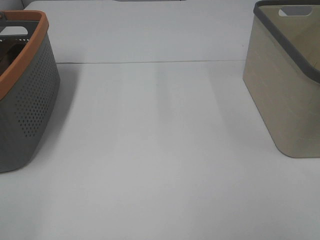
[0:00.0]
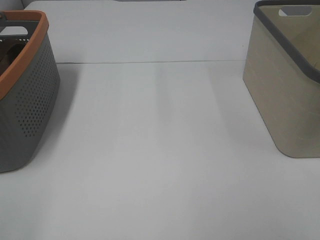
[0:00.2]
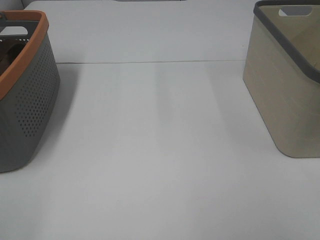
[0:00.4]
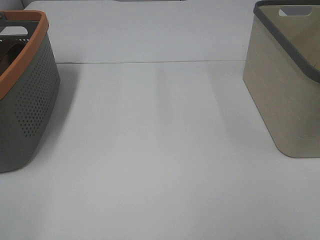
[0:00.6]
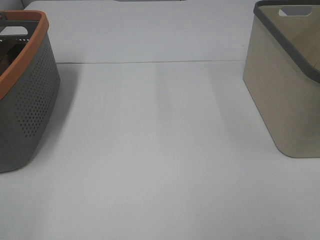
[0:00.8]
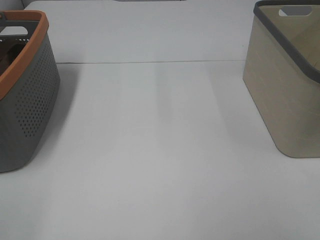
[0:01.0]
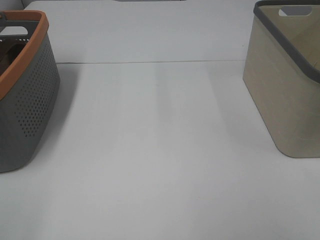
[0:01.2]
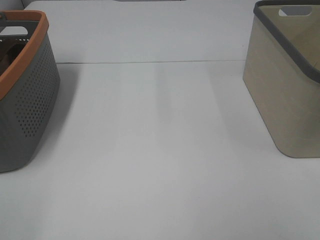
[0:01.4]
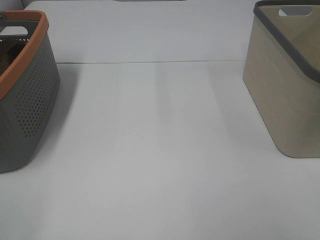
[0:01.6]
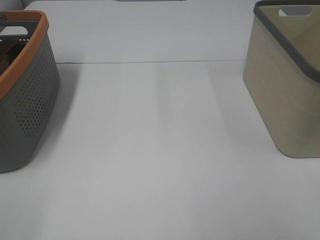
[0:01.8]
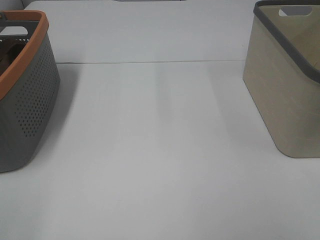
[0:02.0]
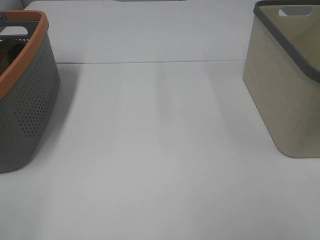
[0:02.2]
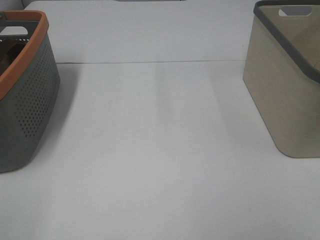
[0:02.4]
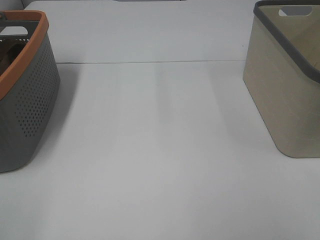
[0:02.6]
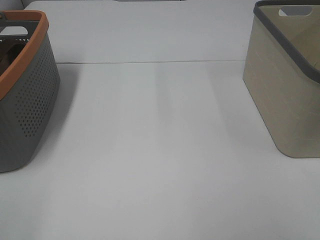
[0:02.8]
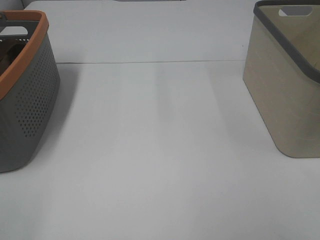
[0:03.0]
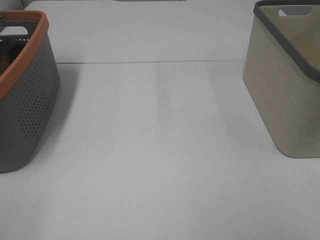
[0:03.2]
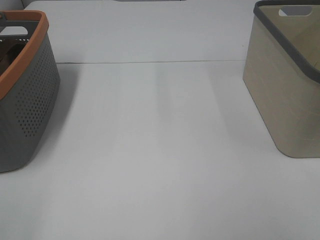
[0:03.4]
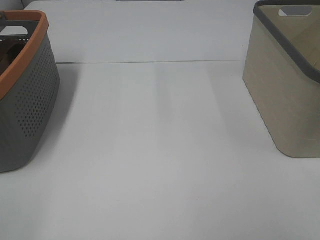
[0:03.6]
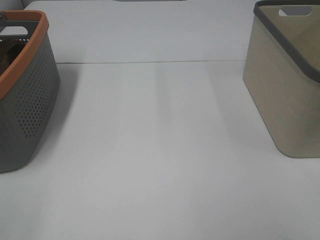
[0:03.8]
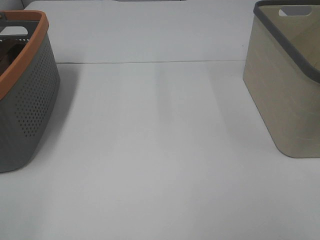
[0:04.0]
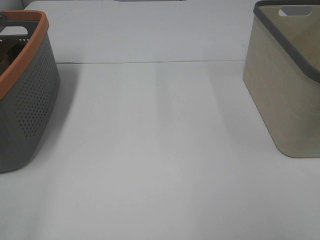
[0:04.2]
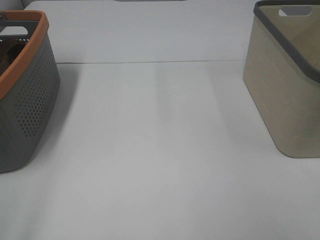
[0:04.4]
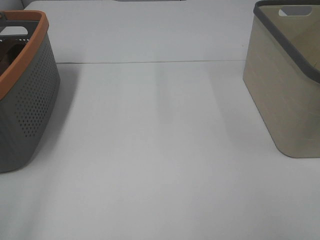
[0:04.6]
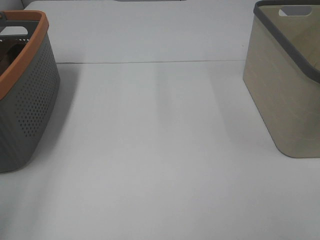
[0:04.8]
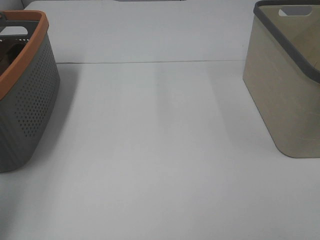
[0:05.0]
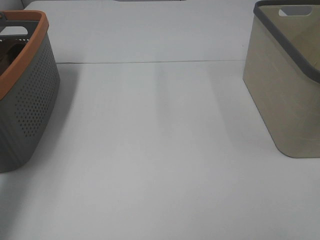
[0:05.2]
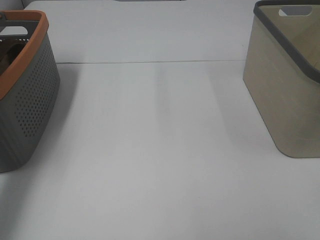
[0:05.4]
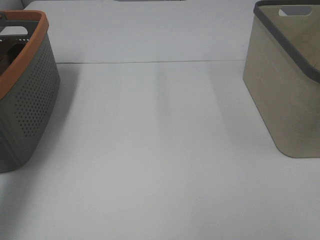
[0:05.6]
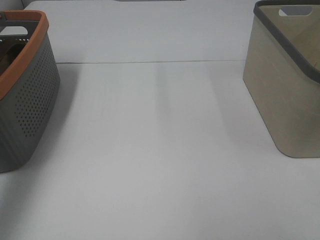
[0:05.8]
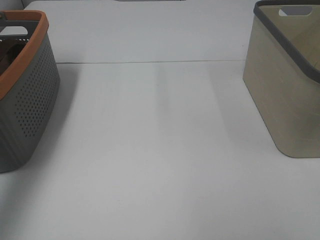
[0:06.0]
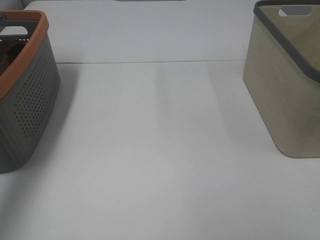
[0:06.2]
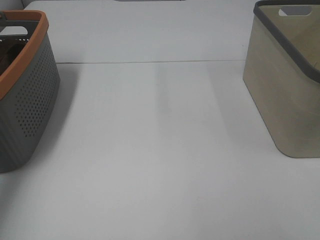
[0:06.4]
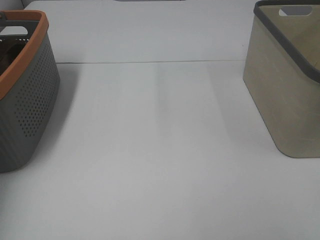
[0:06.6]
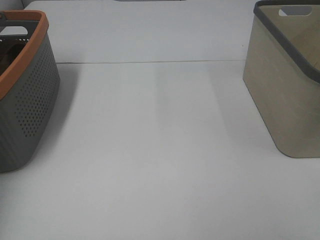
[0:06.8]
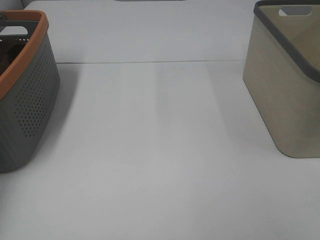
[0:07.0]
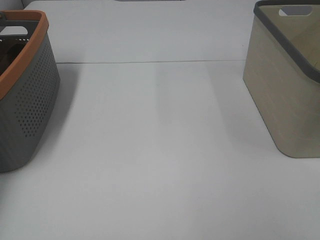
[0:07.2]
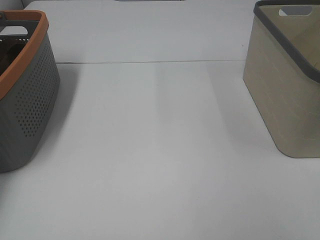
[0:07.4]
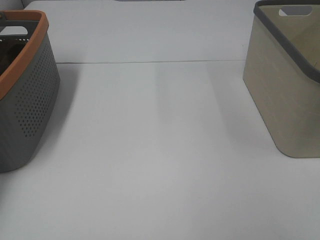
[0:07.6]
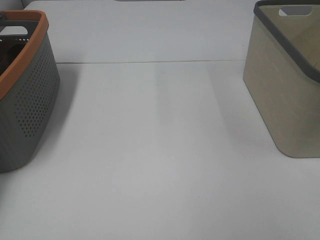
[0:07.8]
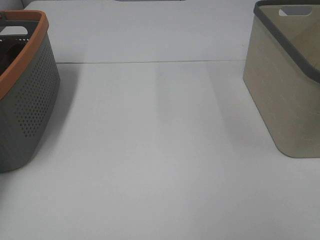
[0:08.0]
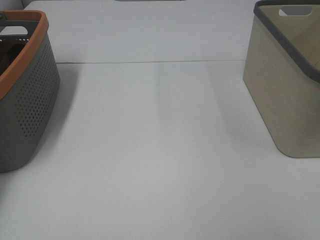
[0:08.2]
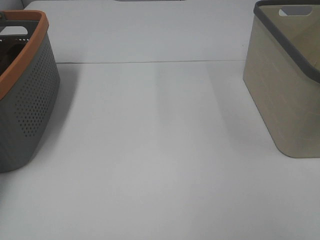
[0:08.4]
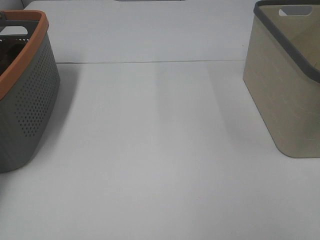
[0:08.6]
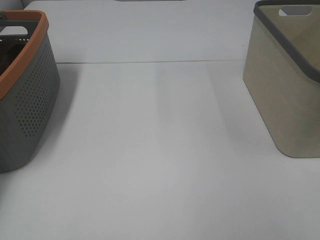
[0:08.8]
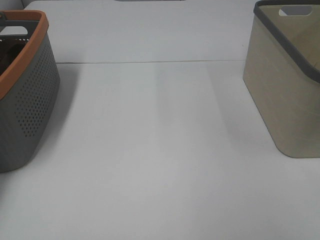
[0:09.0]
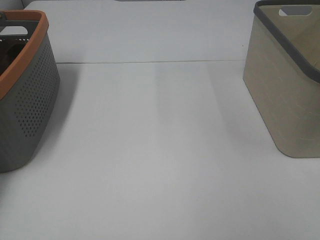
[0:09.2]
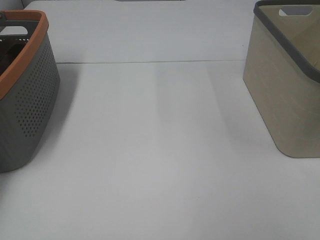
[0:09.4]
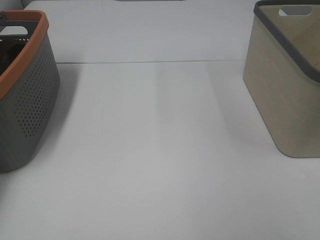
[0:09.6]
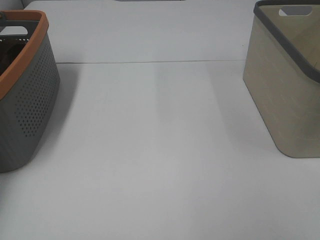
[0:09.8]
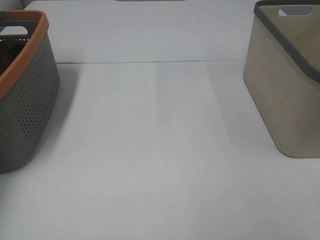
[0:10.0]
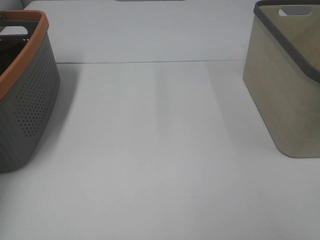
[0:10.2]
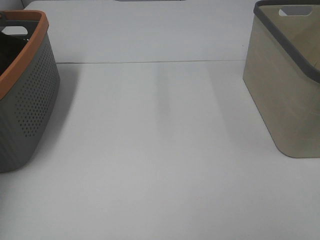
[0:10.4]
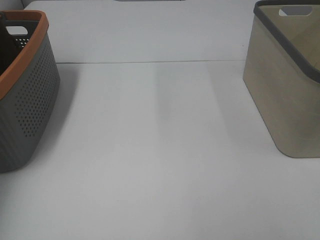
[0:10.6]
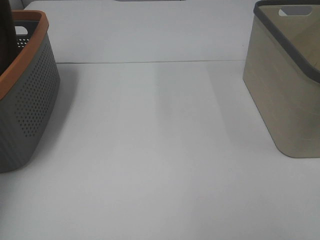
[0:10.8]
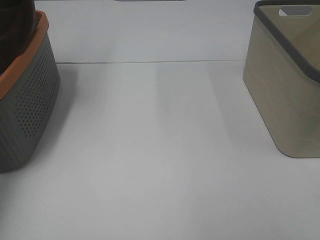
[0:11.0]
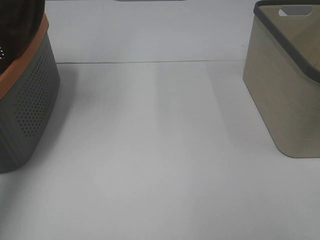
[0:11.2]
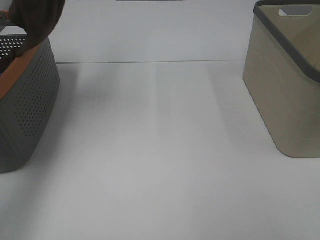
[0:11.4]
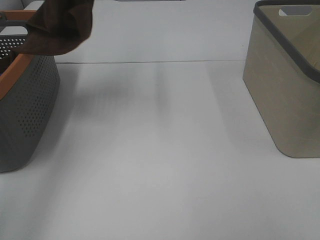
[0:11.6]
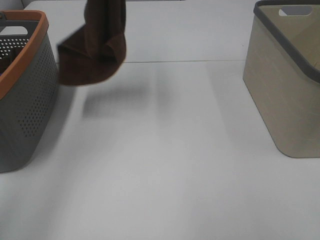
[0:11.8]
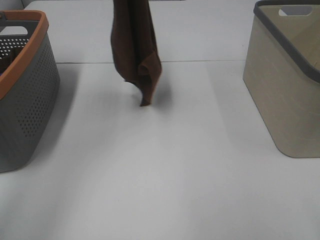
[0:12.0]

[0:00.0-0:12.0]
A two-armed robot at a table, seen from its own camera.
Task of the whole recording: Remove the towel and place it.
0:00.0 to 0:03.0: The two grippers keep their place.
0:04.4 to 0:06.0: The left gripper heads forward, covering about 30 cm.
0:06.0 to 0:07.6: The left gripper is displaced forward, downward and to the left by approximately 20 cm.
0:10.4 to 0:12.0: The left gripper is displaced to the right by some 25 cm.

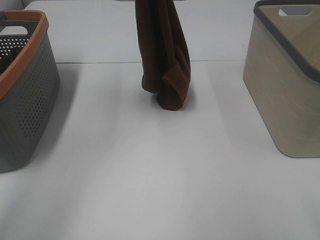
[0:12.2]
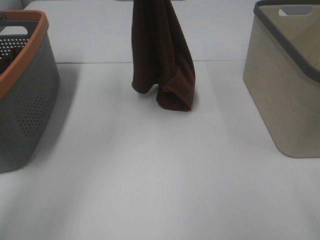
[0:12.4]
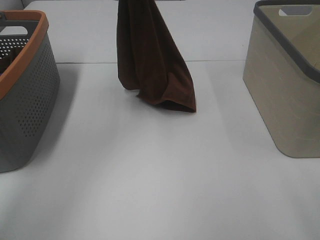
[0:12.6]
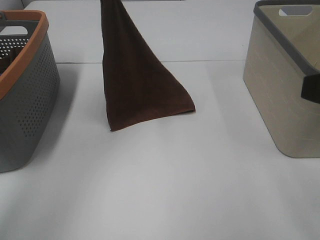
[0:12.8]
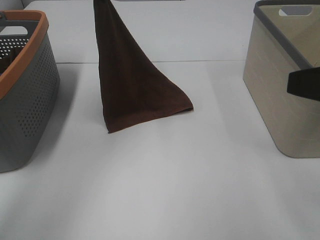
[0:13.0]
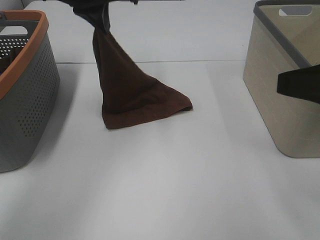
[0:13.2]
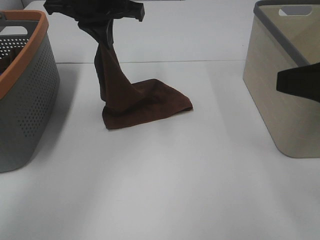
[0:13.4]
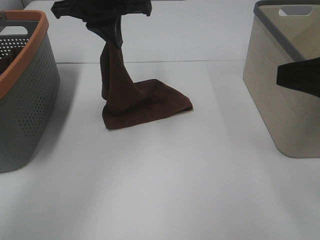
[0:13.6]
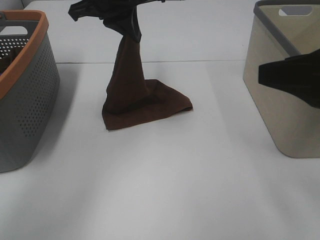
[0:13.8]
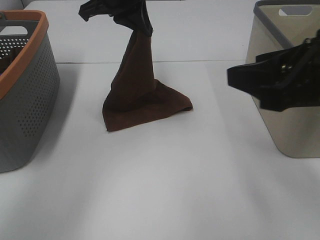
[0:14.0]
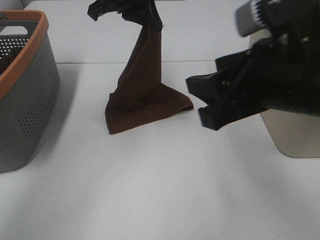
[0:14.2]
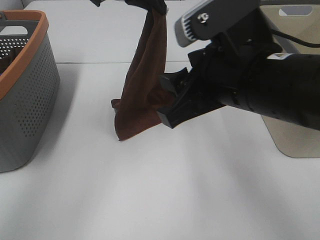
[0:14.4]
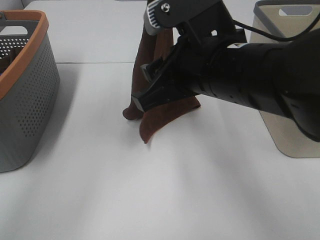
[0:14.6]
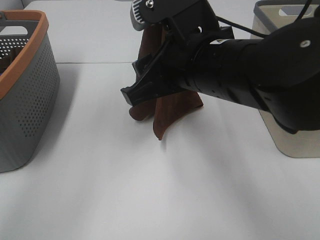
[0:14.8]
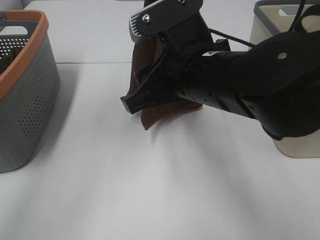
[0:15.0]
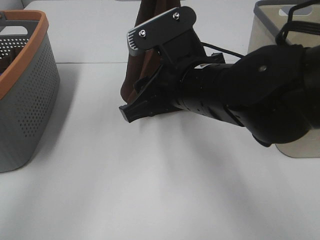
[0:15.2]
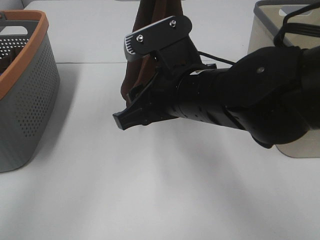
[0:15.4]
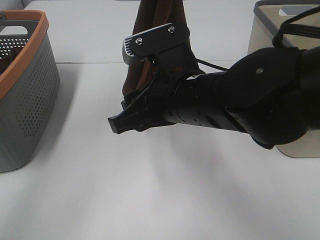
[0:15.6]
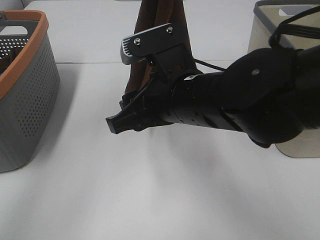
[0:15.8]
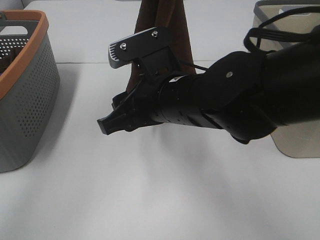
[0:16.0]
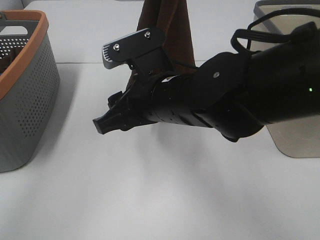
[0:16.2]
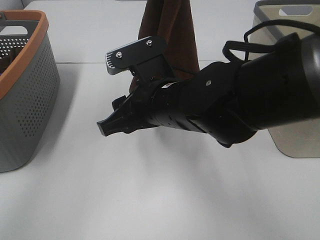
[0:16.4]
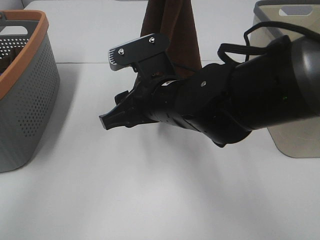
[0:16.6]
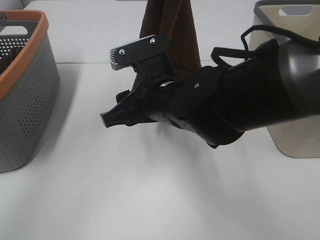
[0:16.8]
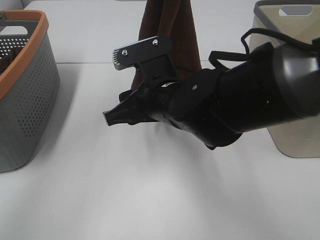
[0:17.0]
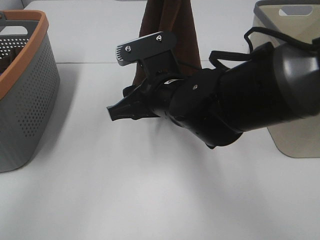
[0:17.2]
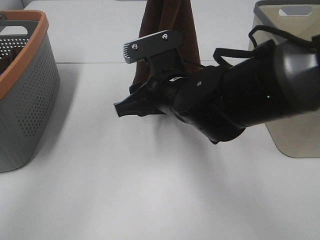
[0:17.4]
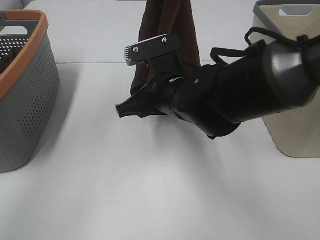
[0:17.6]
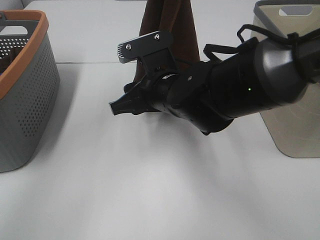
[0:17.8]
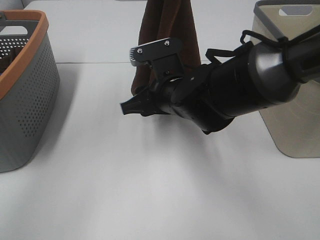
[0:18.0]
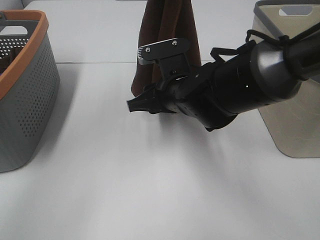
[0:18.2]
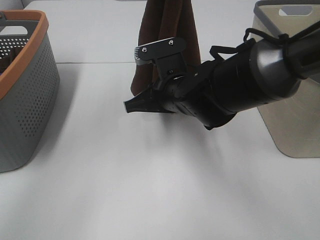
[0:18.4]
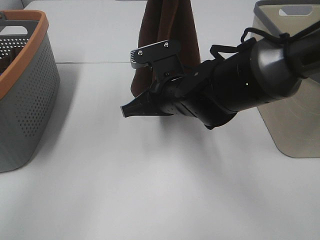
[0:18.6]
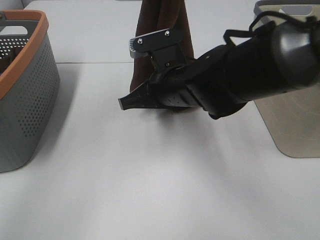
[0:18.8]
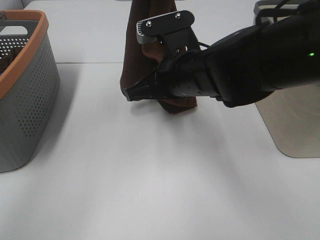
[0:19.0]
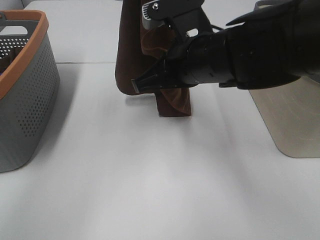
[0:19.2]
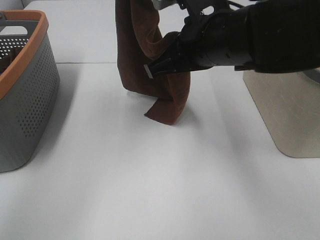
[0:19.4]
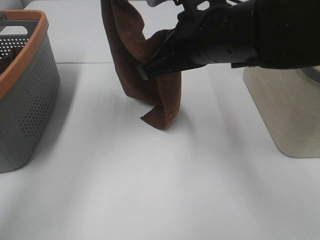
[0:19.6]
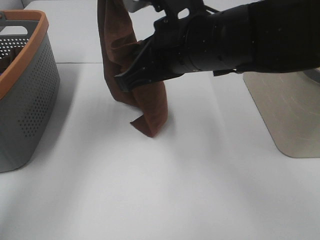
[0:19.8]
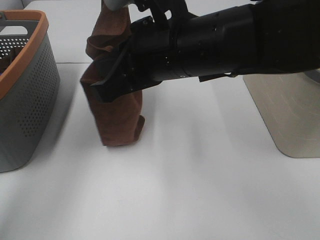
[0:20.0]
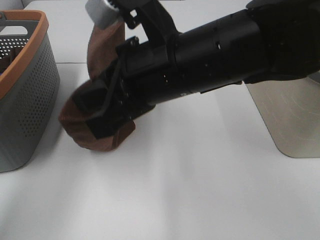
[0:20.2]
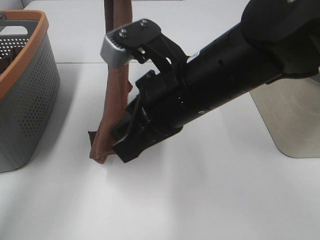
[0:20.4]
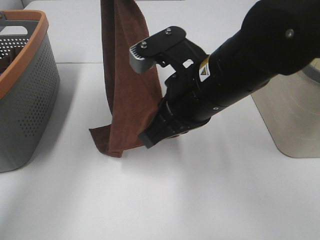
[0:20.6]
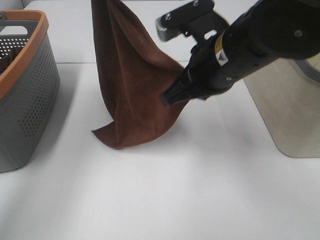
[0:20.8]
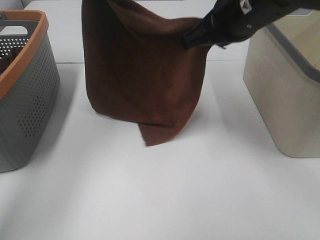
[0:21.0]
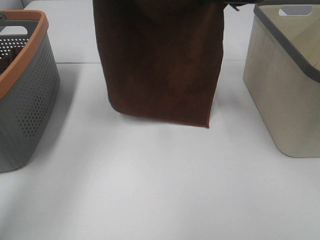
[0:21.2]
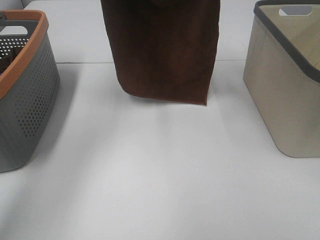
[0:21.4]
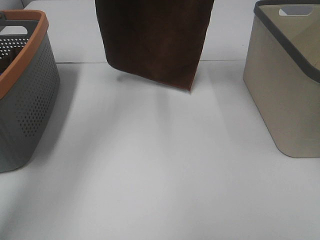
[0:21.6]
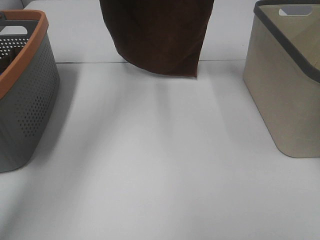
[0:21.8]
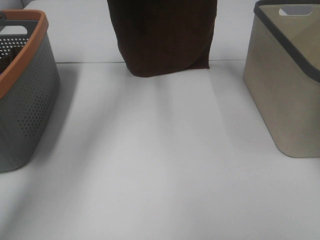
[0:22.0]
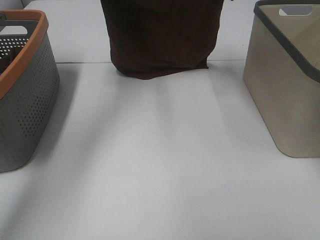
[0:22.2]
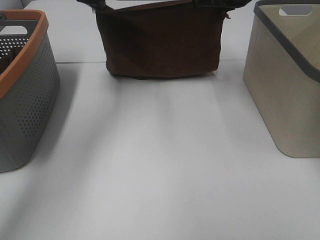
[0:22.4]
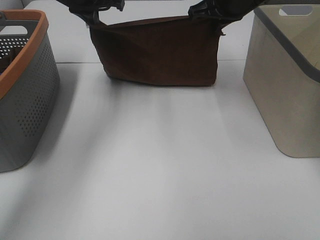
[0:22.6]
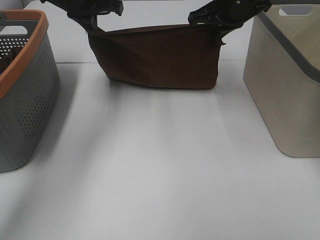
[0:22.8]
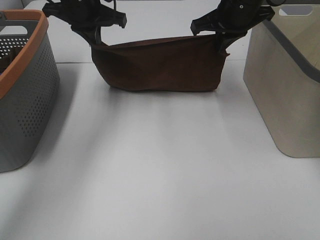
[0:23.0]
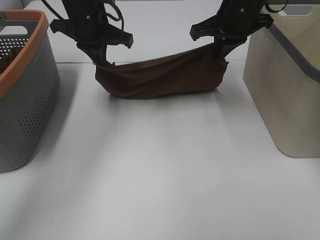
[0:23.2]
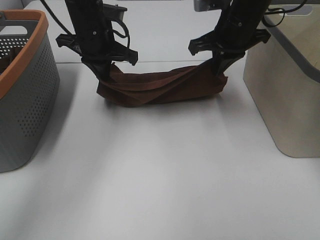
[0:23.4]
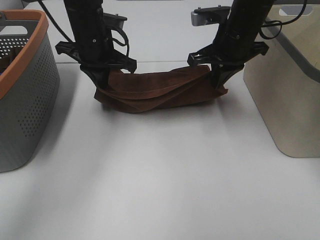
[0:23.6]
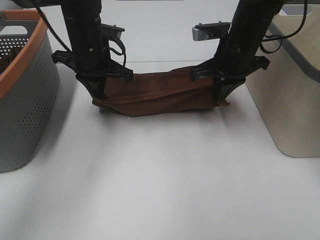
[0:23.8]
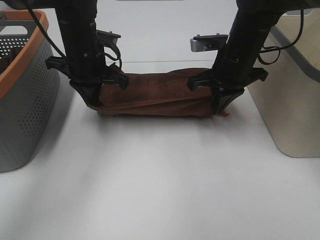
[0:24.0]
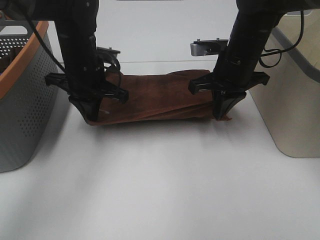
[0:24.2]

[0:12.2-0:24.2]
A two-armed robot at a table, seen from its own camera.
Task of the whole recording: Remove the towel and place it.
Step, 0:12.2 to 0:17.0: Right hand: grab a corner of the brown towel and straighten it.
Step, 0:17.2 to 0:19.8: Left hand: spread the brown towel flat on the table.
Step, 0:17.2 to 0:19.8: Right hand: spread the brown towel flat on the table.
0:12.2 to 0:13.8: The right gripper travels forward by some 15 cm, while the left gripper travels downward by roughly 10 cm.
0:13.8 to 0:15.2: The right gripper is displaced to the left by some 15 cm. The left gripper heads upward, covering roughly 10 cm.
0:15.2 to 0:16.6: The right gripper shifts by approximately 5 cm.
0:16.6 to 0:18.2: The right gripper heads forward, covering about 5 cm.
0:18.2 to 0:19.8: The right gripper travels upward and backward by approximately 10 cm, and closes its fingers. The left gripper shifts roughly 10 cm to the left.
0:19.8 to 0:21.2: The right gripper is displaced forward, to the right and upward by about 15 cm.
0:21.2 to 0:22.6: The right gripper heads forward and downward, covering about 10 cm; the left gripper heads downward, covering roughly 10 cm.
0:22.6 to 0:24.2: Both grippers travel together downward and backward, about 15 cm.
